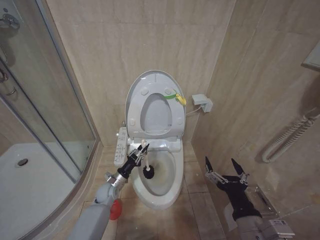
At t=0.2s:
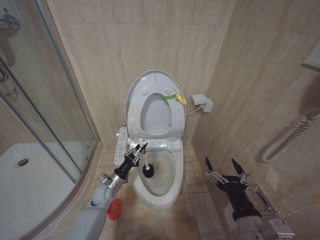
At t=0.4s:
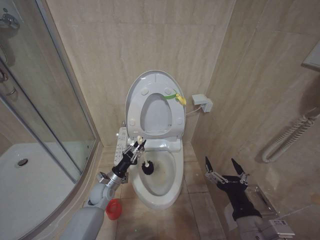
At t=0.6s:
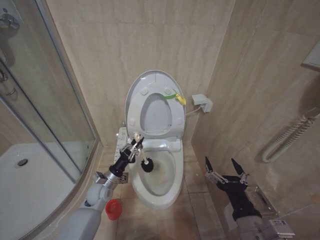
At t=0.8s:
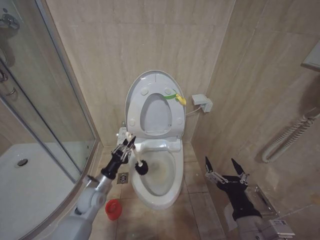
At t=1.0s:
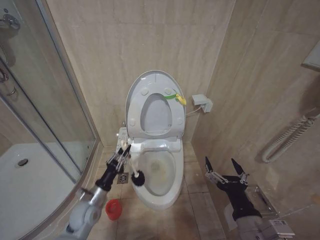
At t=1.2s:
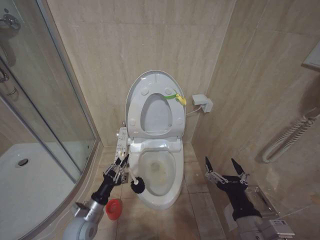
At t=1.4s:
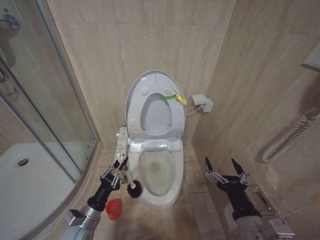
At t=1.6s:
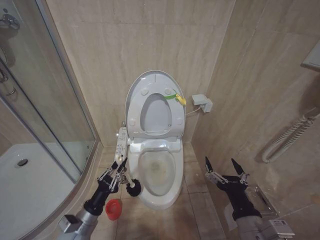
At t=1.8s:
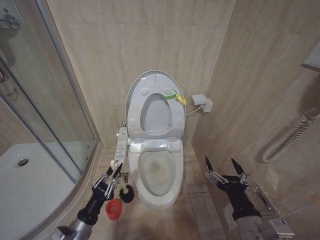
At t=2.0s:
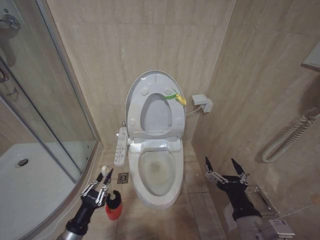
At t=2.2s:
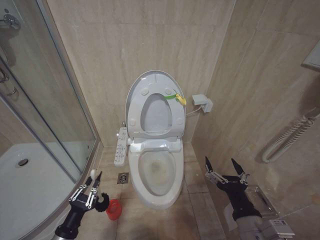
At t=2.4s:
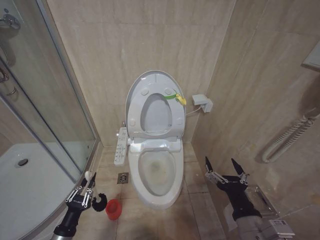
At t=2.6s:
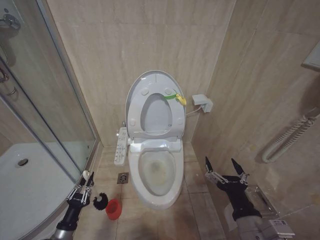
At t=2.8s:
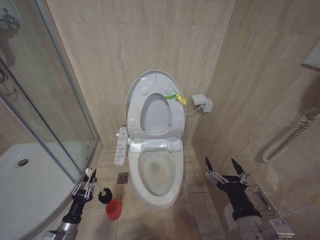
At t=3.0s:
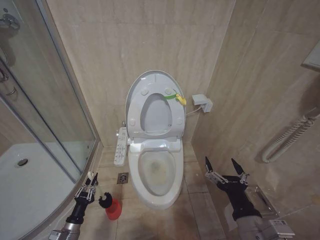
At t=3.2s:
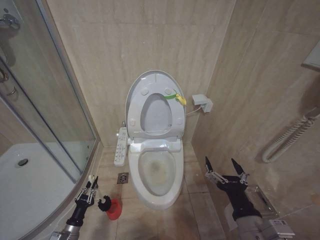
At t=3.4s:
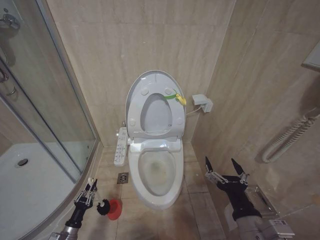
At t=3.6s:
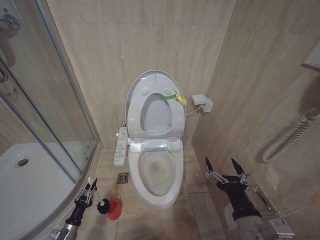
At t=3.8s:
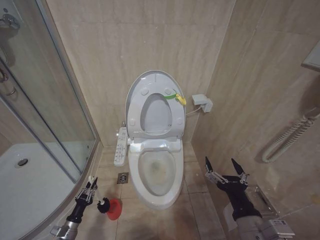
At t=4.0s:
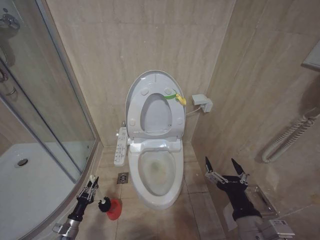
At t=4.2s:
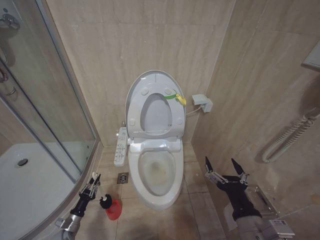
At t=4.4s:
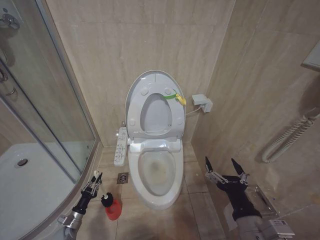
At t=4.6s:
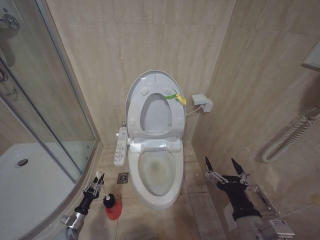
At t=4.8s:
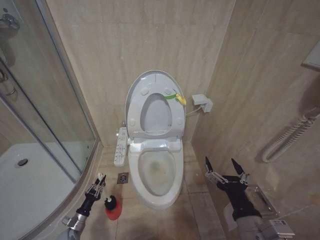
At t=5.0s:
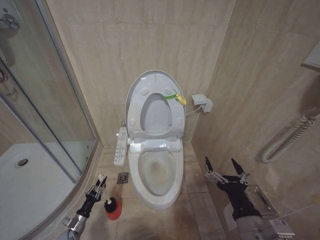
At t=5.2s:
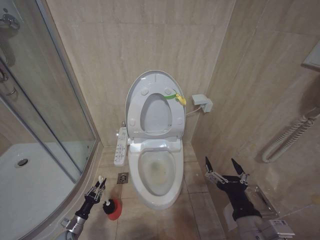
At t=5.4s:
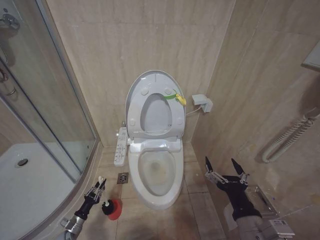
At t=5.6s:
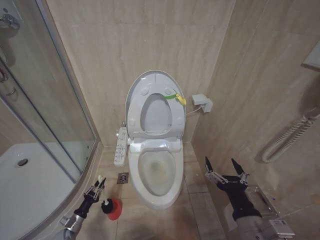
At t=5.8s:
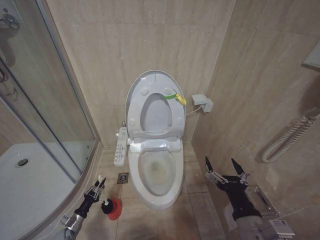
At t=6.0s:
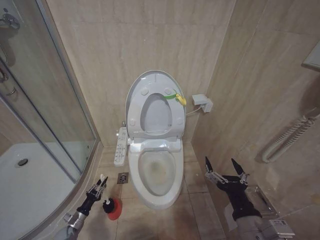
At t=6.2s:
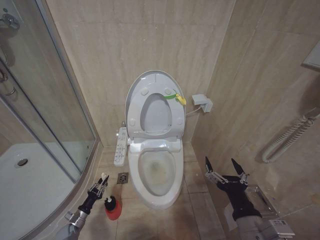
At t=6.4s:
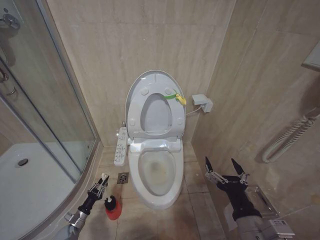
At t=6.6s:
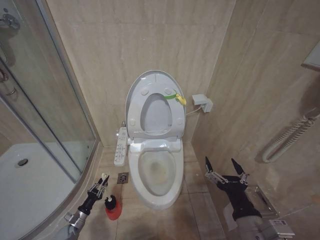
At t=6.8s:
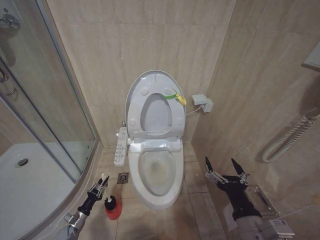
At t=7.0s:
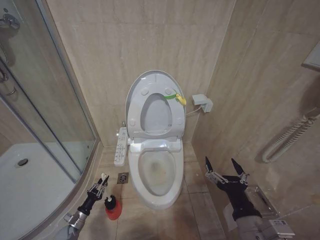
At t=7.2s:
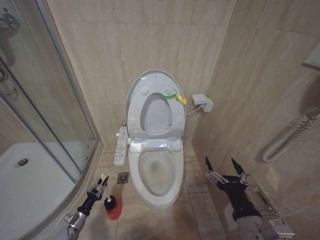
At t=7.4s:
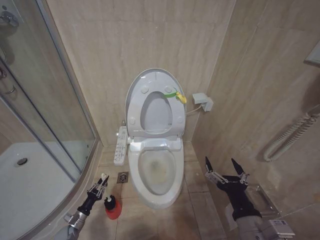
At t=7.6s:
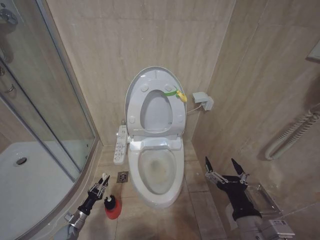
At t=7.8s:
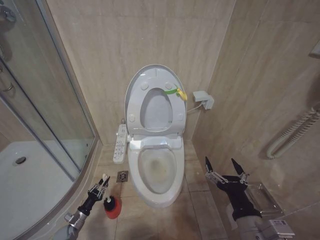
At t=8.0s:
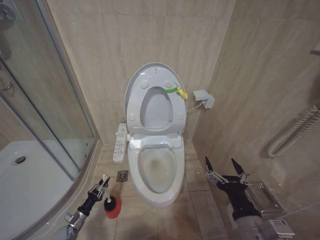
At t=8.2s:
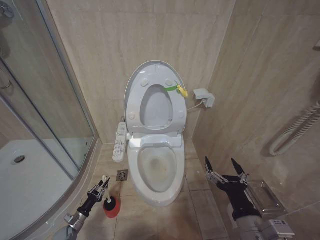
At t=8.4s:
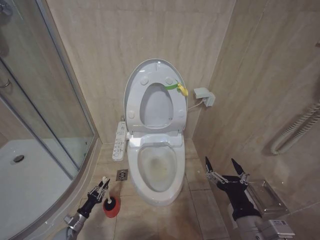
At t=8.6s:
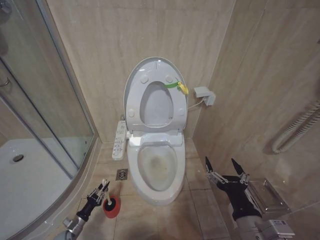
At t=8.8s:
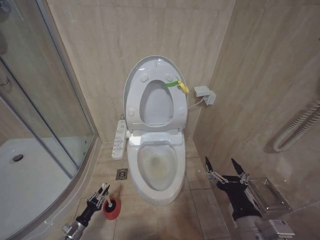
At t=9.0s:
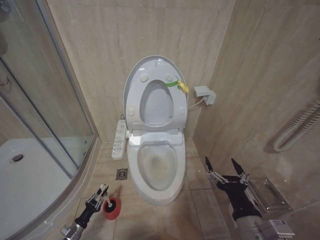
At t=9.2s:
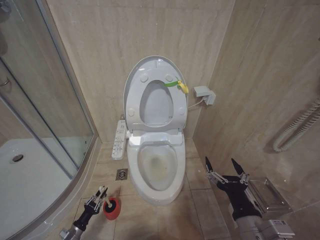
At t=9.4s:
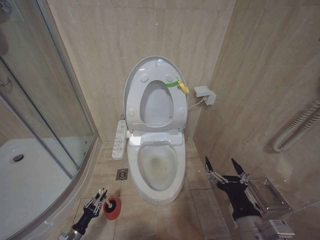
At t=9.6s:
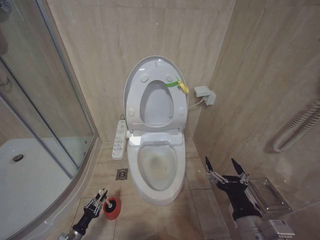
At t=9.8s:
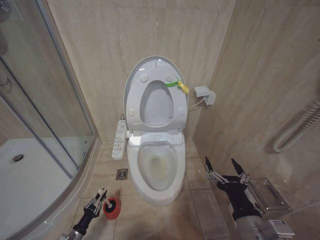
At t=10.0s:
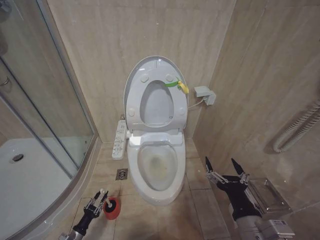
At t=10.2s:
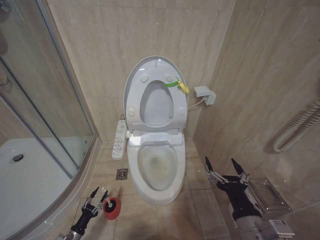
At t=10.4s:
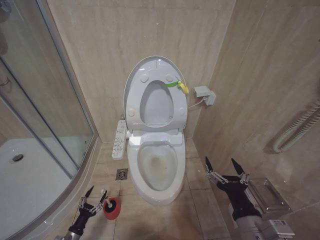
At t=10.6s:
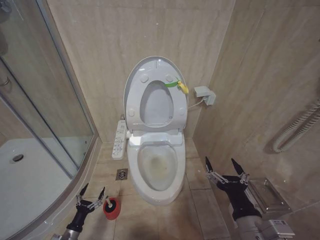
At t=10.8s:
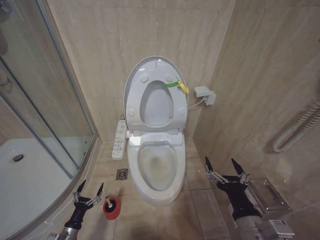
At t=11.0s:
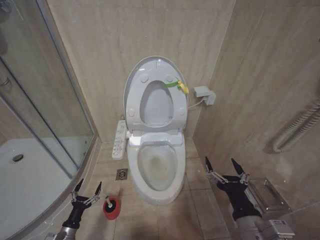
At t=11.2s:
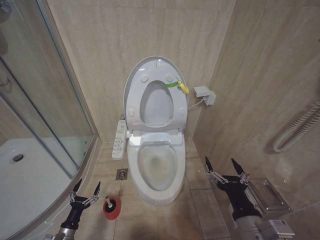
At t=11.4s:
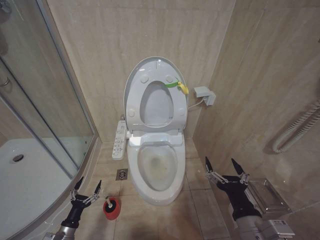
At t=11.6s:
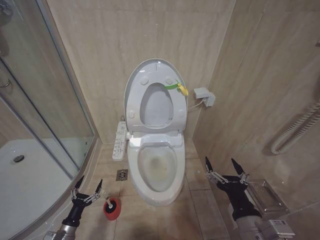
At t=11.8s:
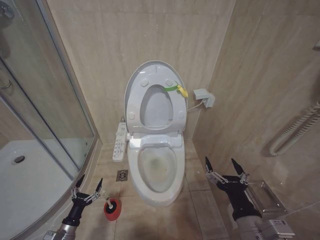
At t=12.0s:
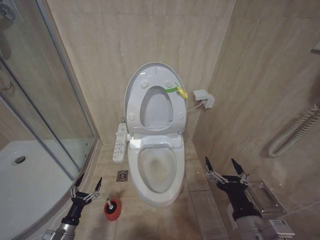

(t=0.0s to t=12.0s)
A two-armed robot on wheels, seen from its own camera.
Task of the whole recording: Open the toilet lid, clean the toilet bowl with a toilet brush, close the toilet lid, and flush.
t=0.0s - t=1.6s: The left gripper moves backward and upward, about 20 cm.
t=1.6s - t=3.0s: The left gripper goes approximately 15 cm downward and to the left.
t=3.0s - t=4.4s: The left gripper goes about 10 cm downward, forward and to the left.
t=4.4s - t=9.0s: There are only small adjustments of the grippers.
t=9.0s - t=10.4s: The left gripper opens.
t=10.4s - t=12.0s: The left gripper heads upward, covering some 10 cm, and opens.

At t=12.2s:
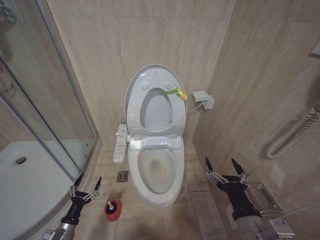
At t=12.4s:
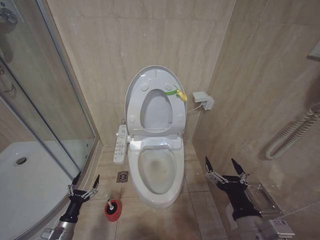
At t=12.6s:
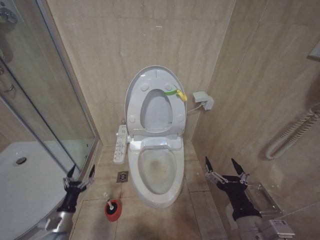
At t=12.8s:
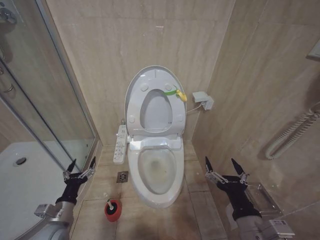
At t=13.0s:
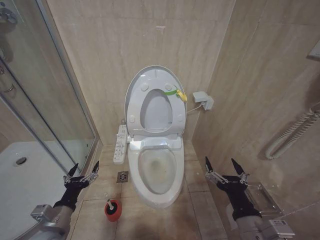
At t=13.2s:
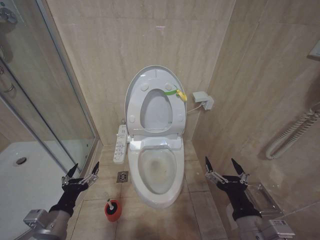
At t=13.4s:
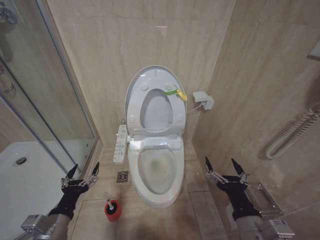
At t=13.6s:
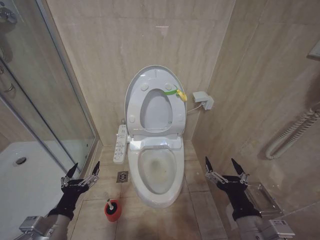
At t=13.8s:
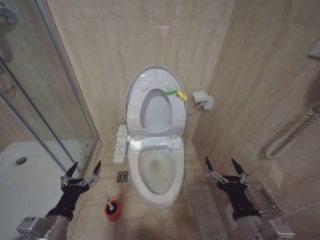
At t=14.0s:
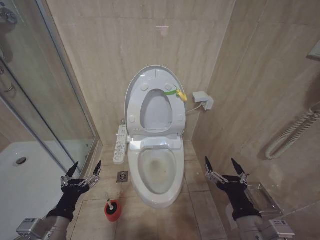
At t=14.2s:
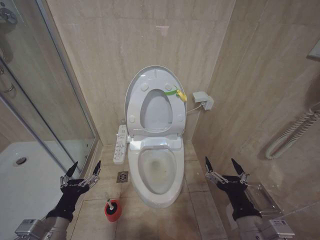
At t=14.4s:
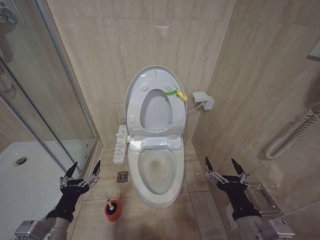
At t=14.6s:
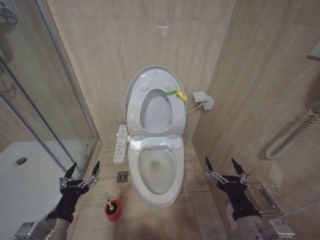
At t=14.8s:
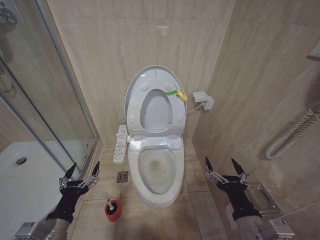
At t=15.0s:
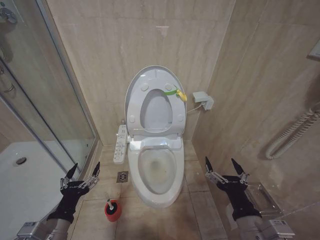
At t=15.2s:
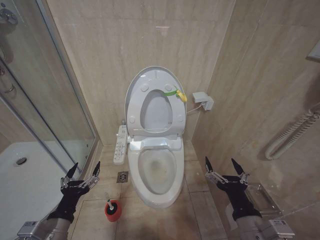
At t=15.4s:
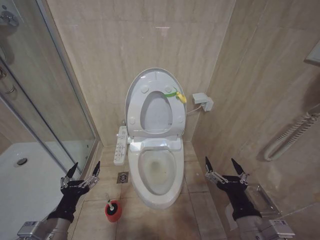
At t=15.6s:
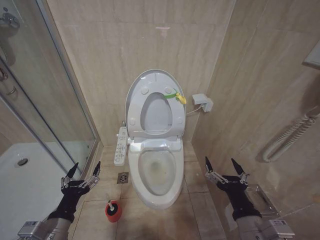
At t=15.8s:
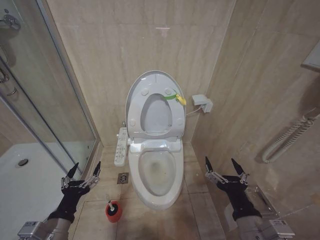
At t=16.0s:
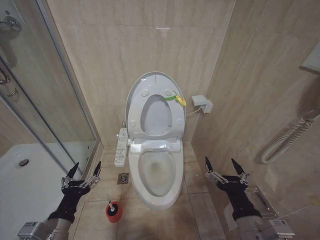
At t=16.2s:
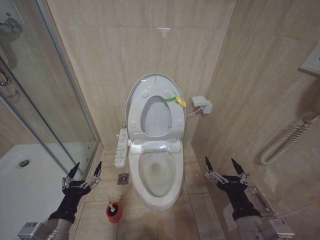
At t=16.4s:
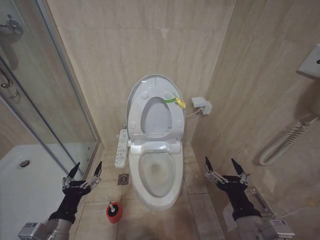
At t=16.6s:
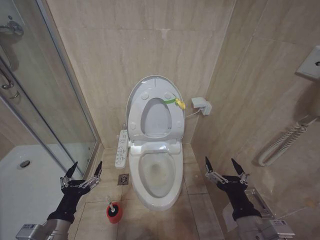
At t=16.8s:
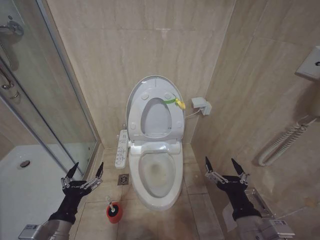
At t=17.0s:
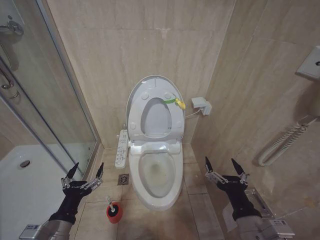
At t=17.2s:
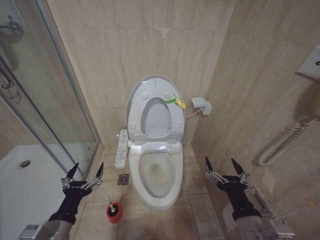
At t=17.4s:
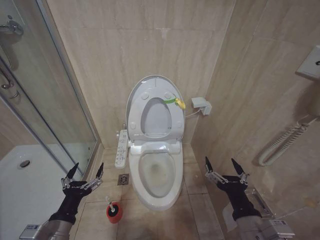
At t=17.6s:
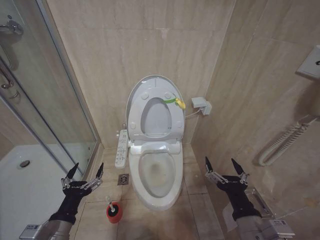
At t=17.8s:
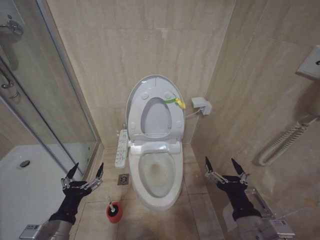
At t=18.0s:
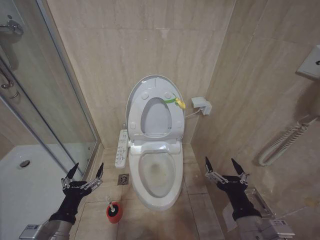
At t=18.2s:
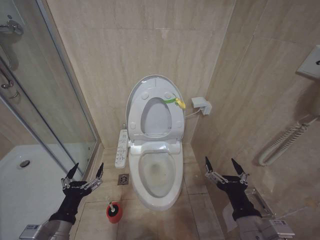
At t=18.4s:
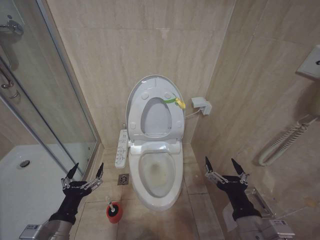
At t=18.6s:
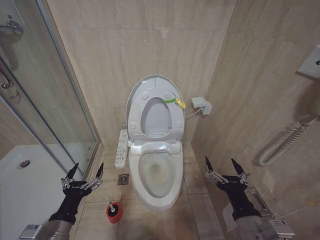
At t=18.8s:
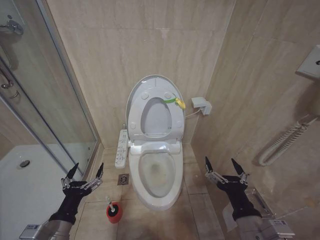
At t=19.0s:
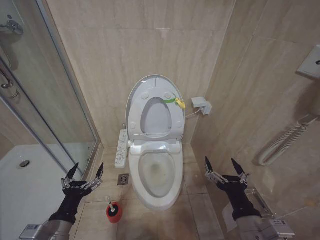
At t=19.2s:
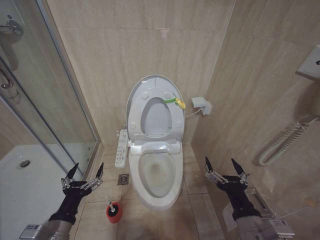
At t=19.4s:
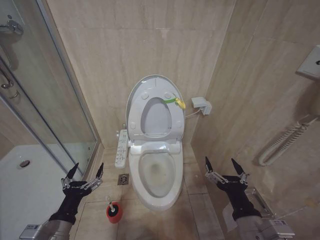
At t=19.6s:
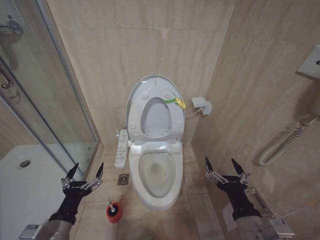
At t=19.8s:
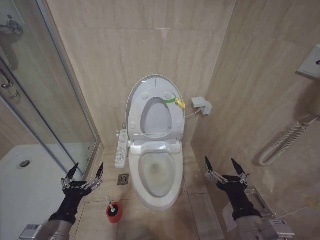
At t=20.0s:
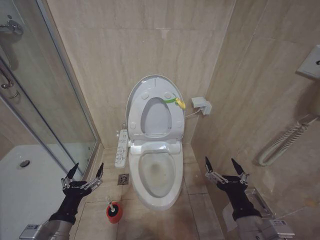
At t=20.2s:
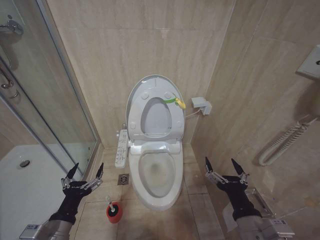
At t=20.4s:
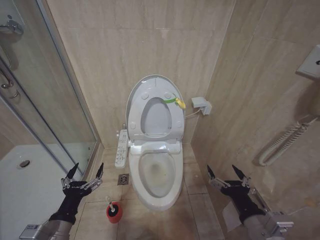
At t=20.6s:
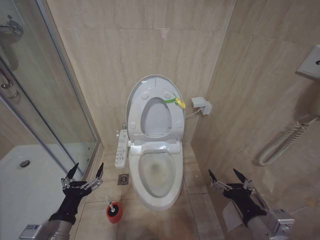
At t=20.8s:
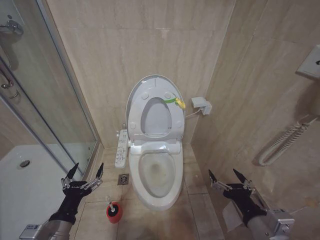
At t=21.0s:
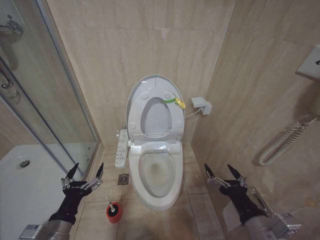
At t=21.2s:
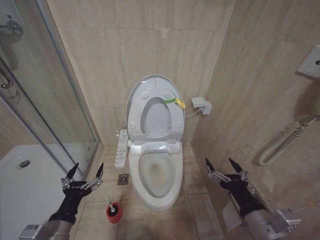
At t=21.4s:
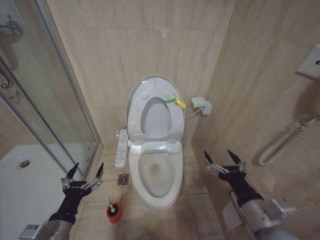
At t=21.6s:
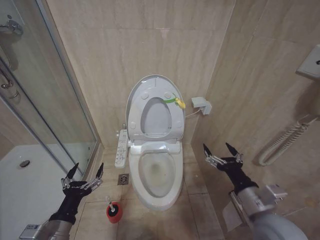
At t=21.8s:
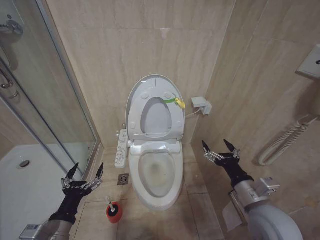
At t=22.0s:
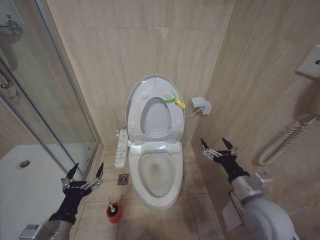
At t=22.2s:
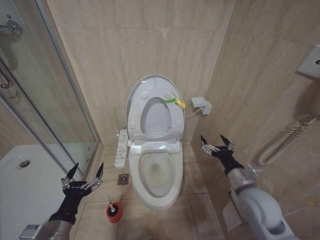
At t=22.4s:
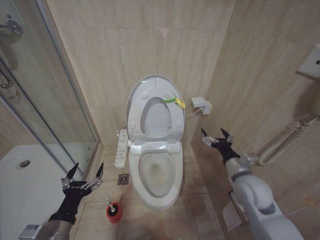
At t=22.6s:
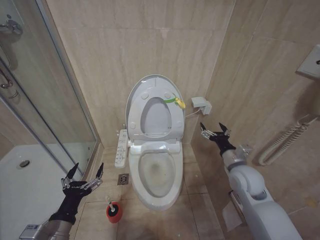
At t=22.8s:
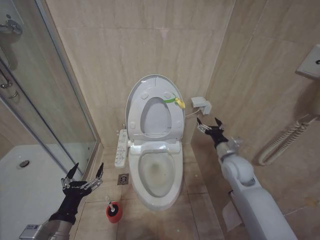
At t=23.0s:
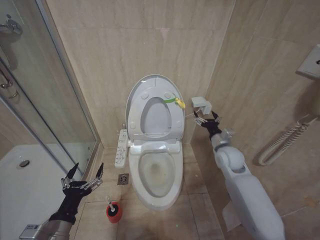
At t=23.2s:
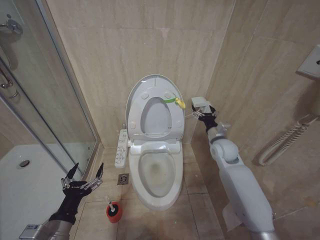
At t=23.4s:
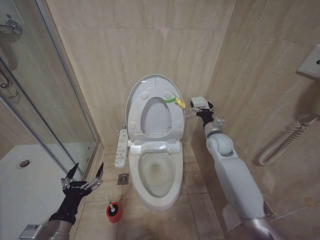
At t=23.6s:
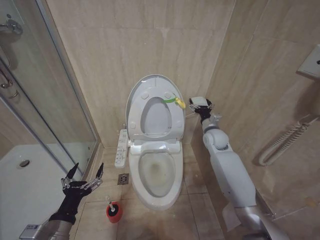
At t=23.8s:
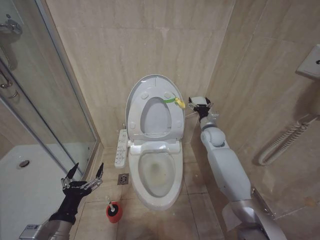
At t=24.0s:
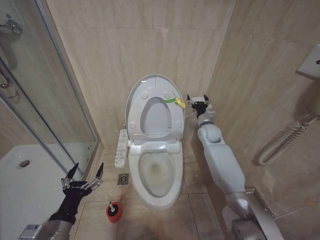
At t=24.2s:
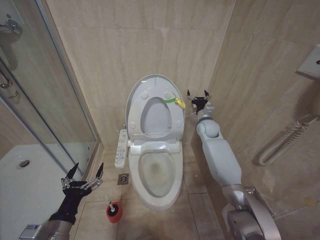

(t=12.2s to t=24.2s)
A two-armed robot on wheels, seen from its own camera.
Task of the whole recording: Open the toilet lid, clean the toilet bowl with a toilet brush, close the toilet lid, and flush.
t=12.2s - t=13.8s: The left gripper travels upward by some 25 cm.
t=13.8s - t=16.6s: Both grippers stay put.
t=16.6s - t=19.8s: Both grippers stay put.
t=19.8s - t=21.2s: The grippers move only a little.
t=21.2s - t=22.6s: The right gripper moves forward, about 20 cm.
t=22.6s - t=24.2s: The right gripper travels forward by some 25 cm.
